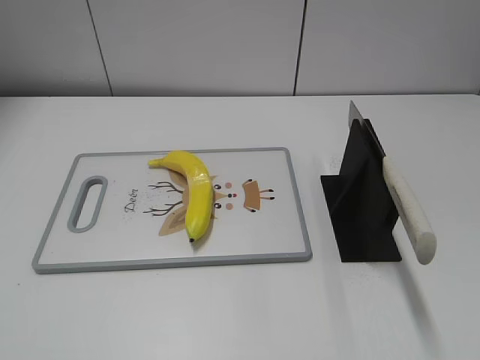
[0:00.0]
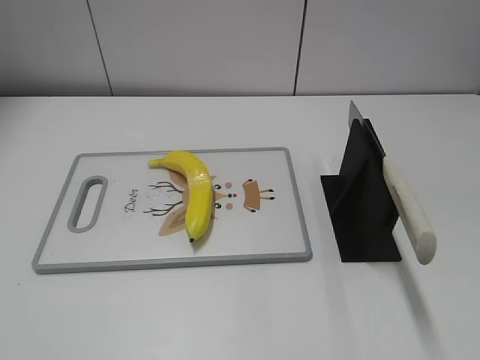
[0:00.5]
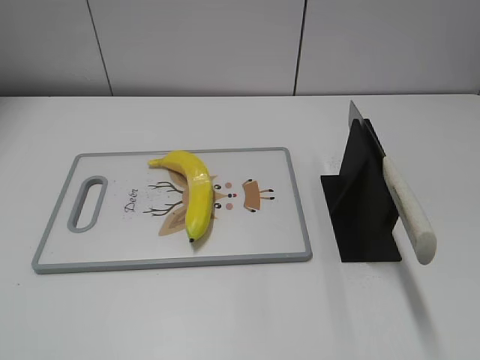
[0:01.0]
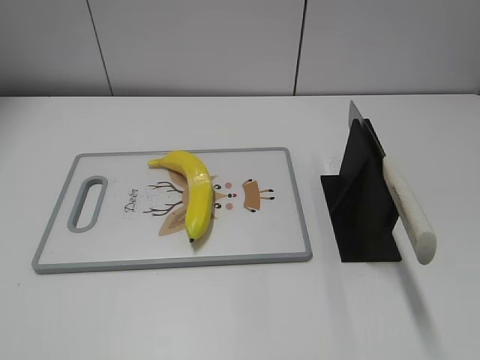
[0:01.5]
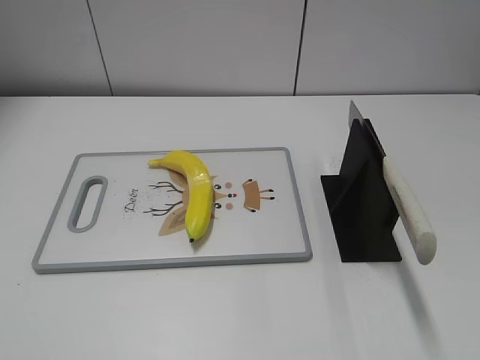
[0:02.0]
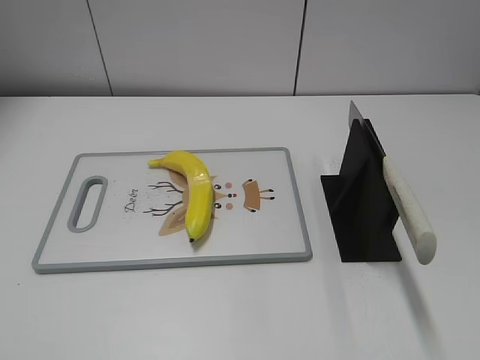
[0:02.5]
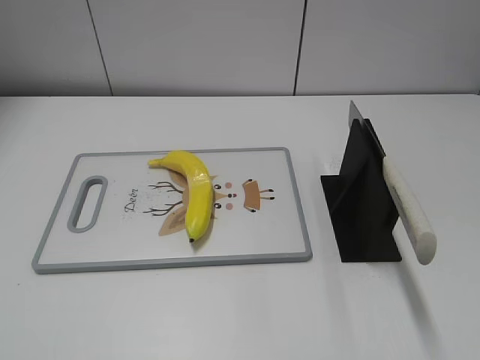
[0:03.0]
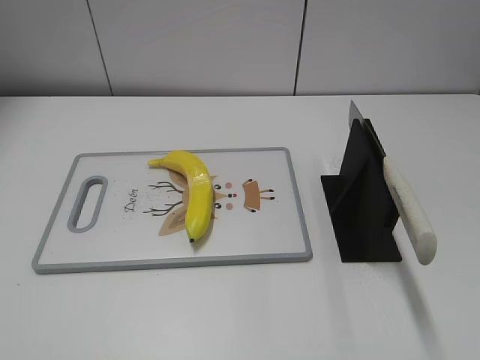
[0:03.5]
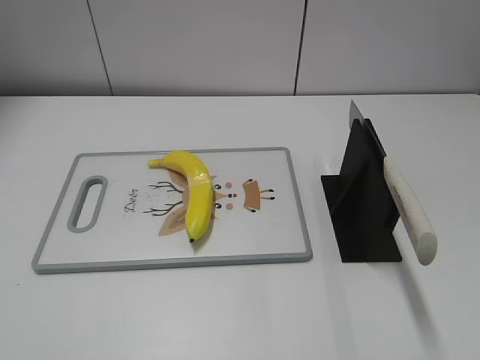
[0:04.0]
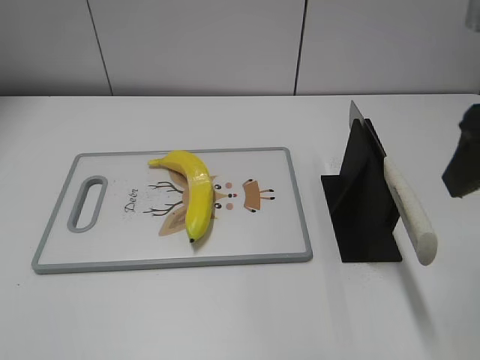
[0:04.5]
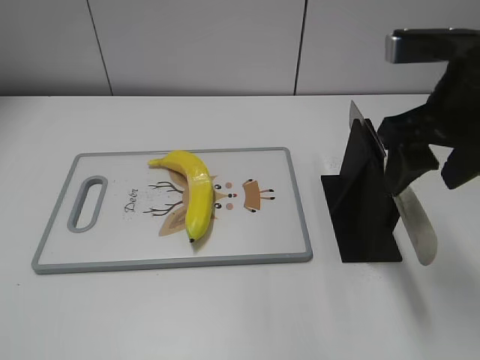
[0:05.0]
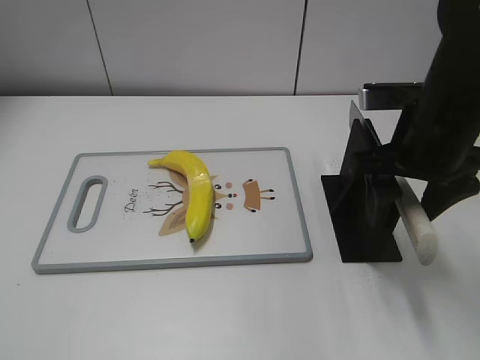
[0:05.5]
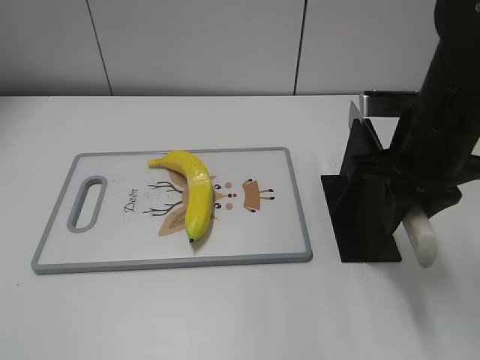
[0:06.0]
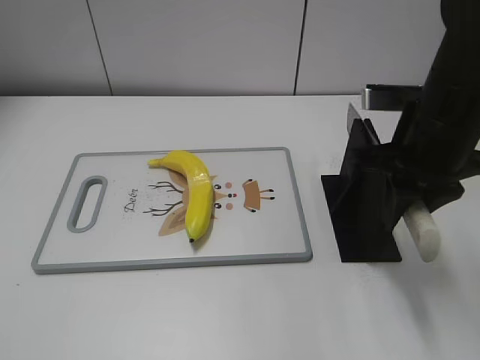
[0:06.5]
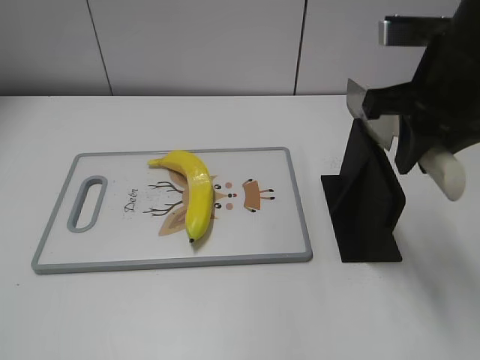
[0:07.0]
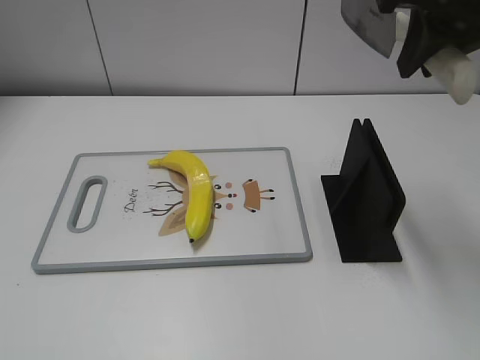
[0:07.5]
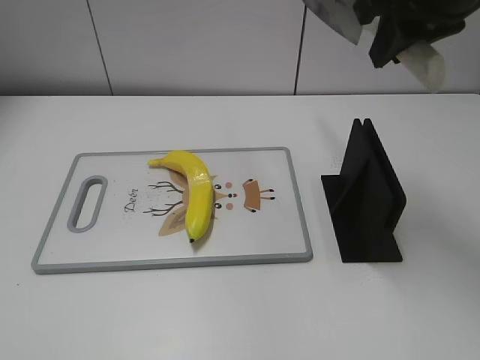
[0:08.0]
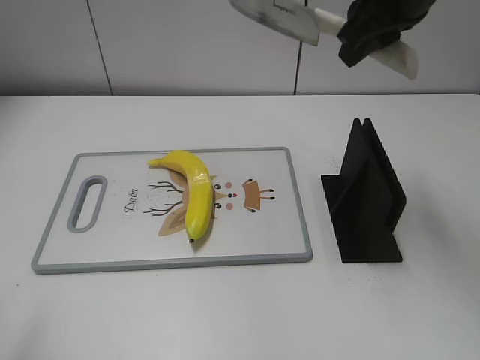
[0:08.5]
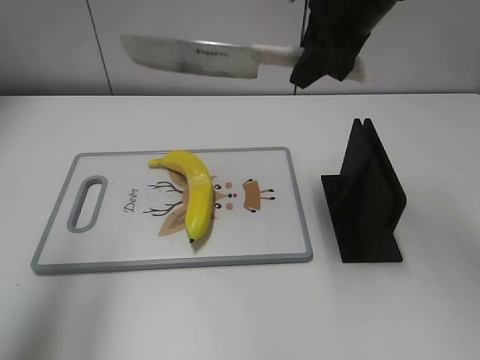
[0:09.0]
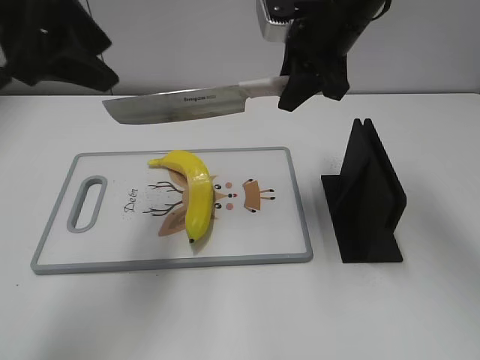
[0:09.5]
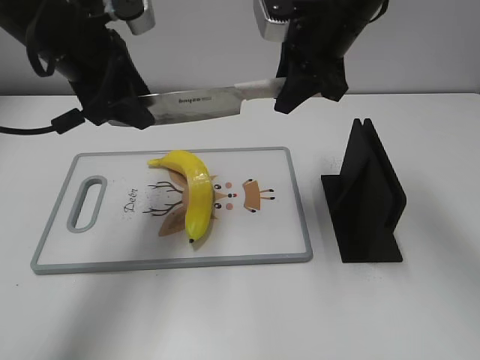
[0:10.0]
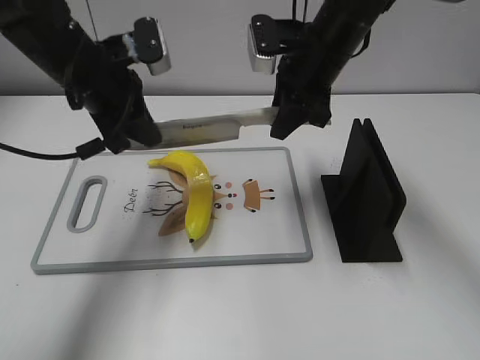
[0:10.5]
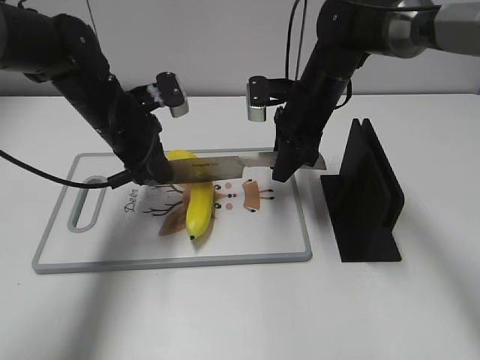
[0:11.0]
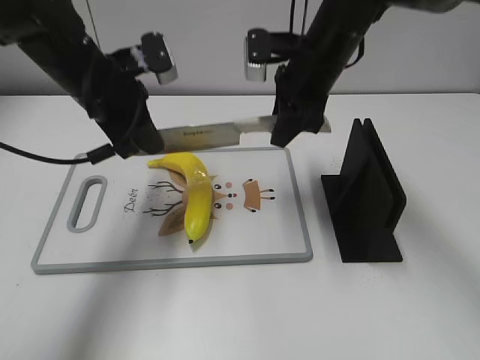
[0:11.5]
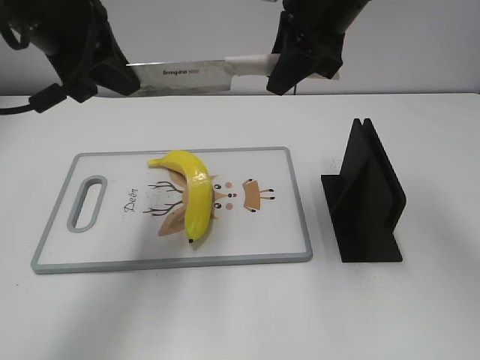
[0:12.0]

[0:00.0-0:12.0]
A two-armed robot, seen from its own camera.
Task of the whole recording: cut plastic banana.
Step, 0:00.0 to 0:07.5: Grab the knife handle with your right hand.
0:04.0 to 0:06.0: The right gripper is displaced forward, downward and to the left by approximately 20 cm, and closes up.
0:06.0 to 0:08.0: The right gripper shifts approximately 15 cm upward.
0:08.0 to 0:10.0: The right gripper is displaced downward, forward and to the left by approximately 15 cm, while the left gripper shifts roughly 40 cm forward and to the right.
0:10.0 to 0:12.0: The left gripper reaches some 15 cm downward, then returns, and closes up, while the right gripper goes downward and returns, roughly 15 cm each way.

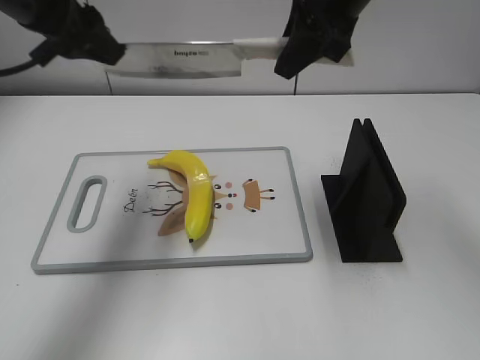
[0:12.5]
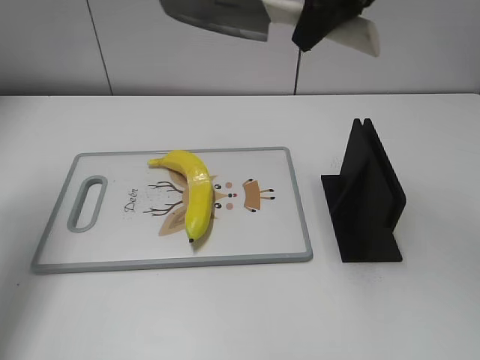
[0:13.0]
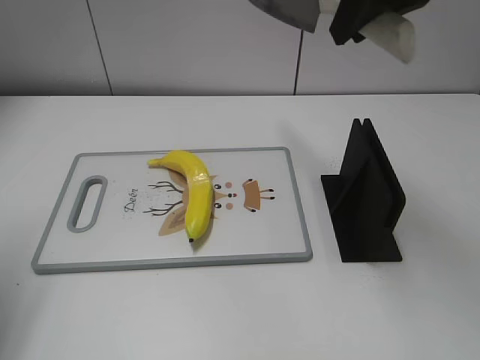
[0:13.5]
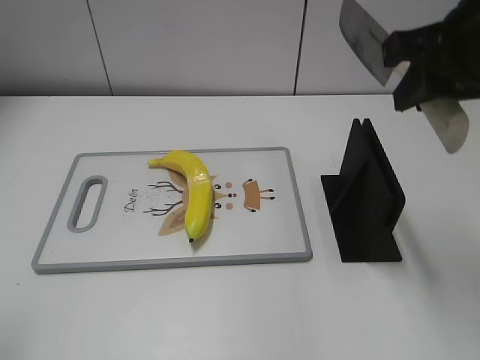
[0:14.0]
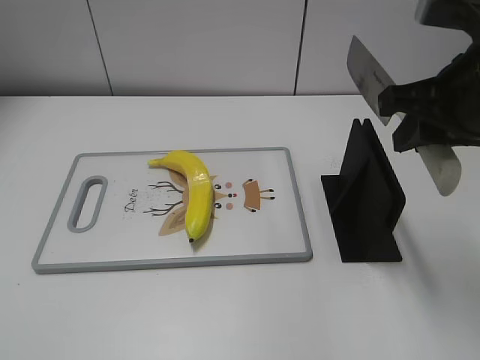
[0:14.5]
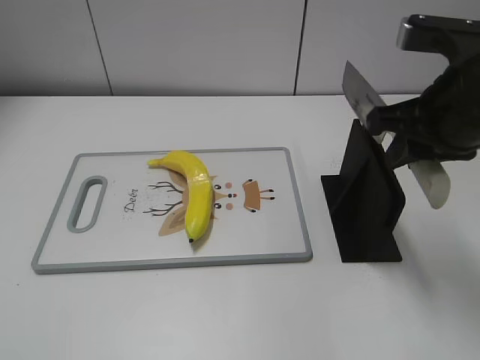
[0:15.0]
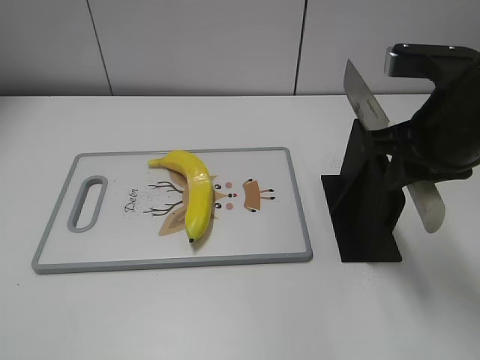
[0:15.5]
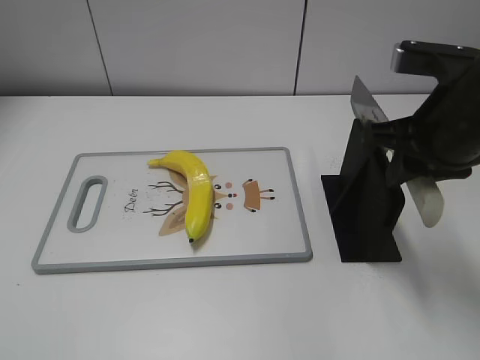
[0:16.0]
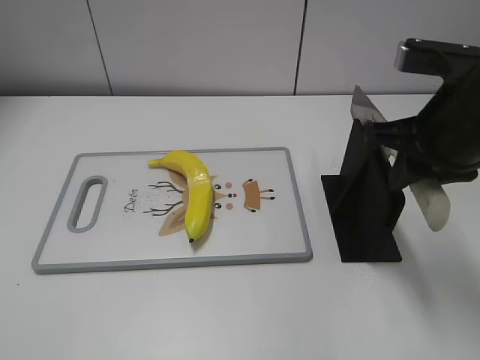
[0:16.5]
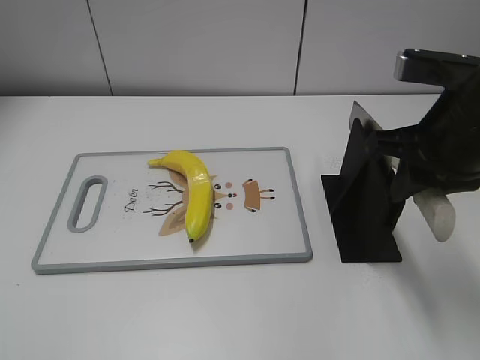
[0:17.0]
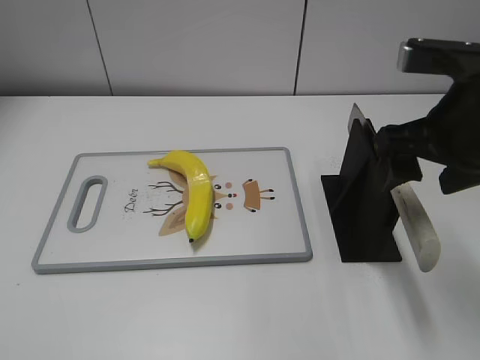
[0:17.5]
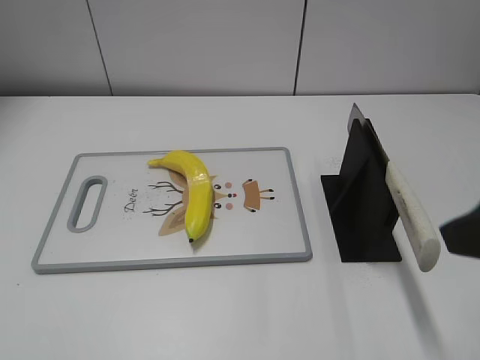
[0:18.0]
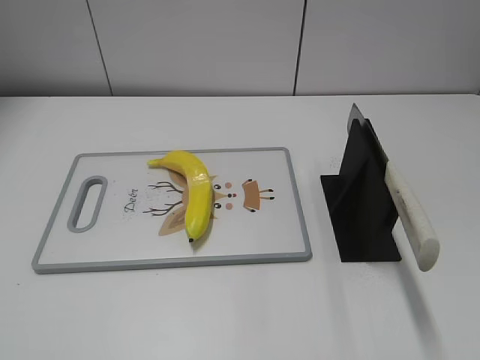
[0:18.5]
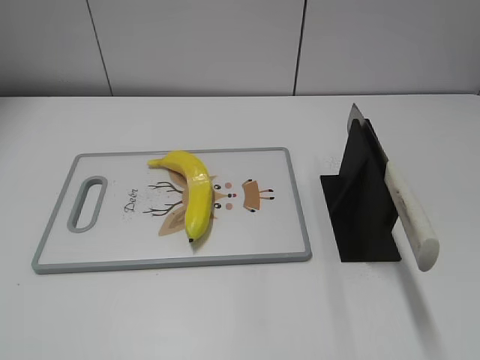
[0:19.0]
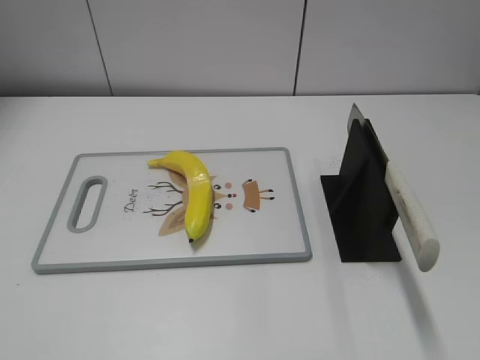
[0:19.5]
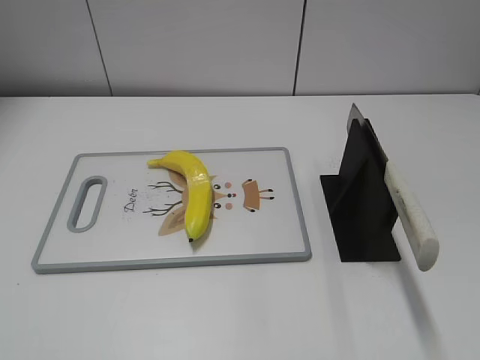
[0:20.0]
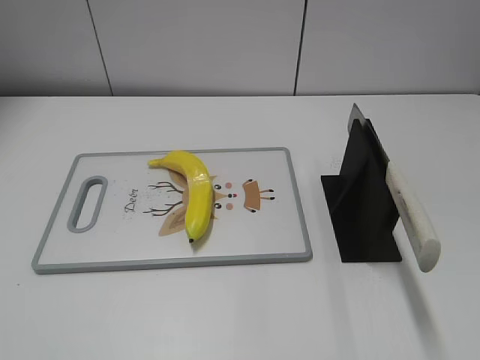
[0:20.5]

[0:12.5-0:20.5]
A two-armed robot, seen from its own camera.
Task of the whole recording: cut plastic banana.
Step, 0:13.0 to 0:13.5: Cut the banana with your right hand.
Step, 0:14.0 to 0:15.0: Lift the knife with your right hand.
Step, 0:15.5 to 0:20.5: Place the knife on the storage rack with your right hand.
0:12.5 to 0:14.5: The left gripper travels backward by roughly 35 cm. The right gripper goes approximately 15 cm backward and to the right.
0:14.5 to 0:16.5: The grippers stay close to where they were, moving slightly.
0:16.5 to 0:18.5: The right gripper travels backward and to the right by roughly 25 cm, and opens.

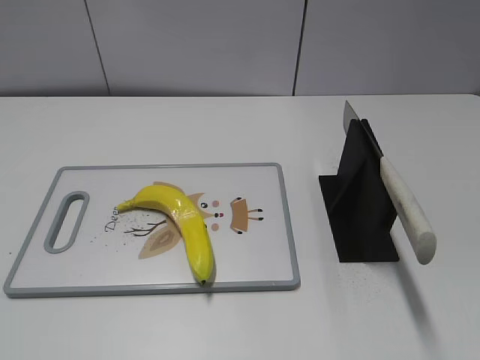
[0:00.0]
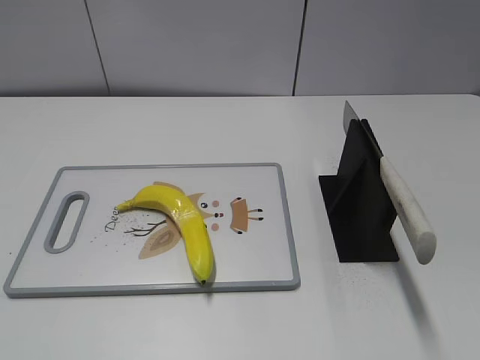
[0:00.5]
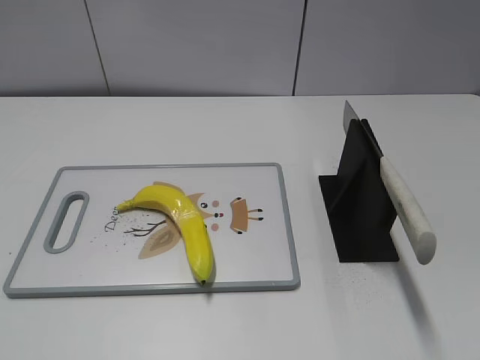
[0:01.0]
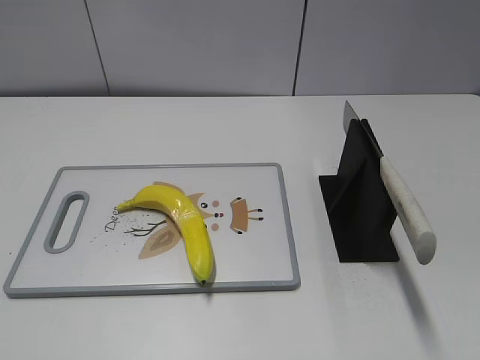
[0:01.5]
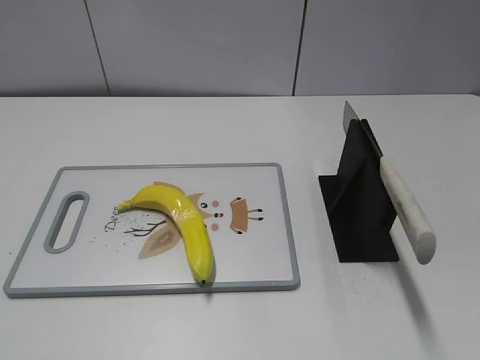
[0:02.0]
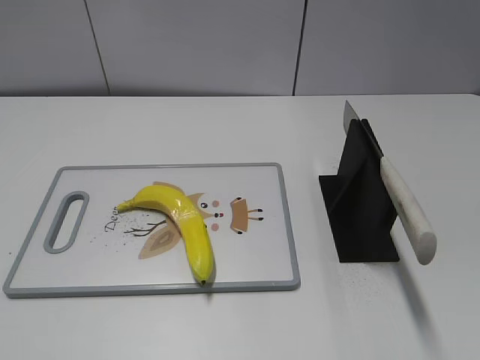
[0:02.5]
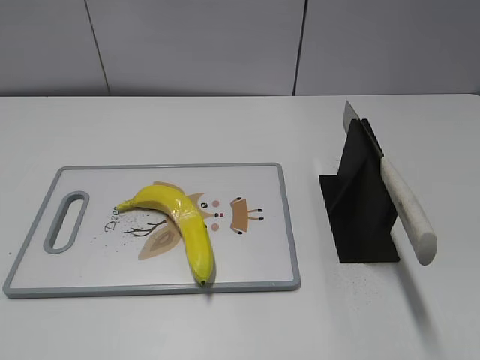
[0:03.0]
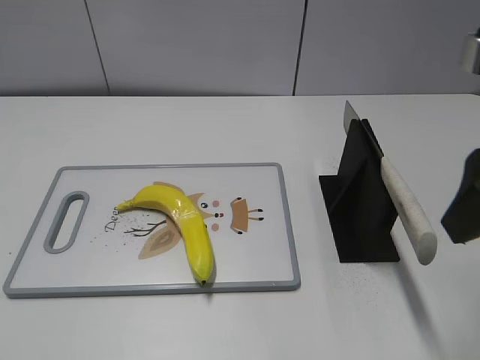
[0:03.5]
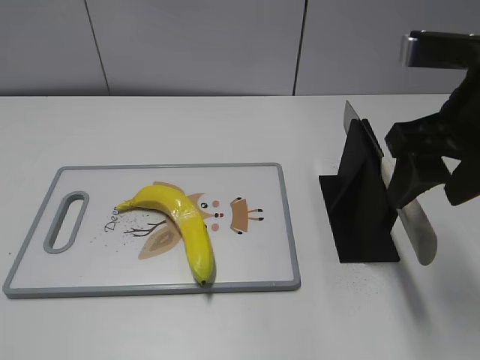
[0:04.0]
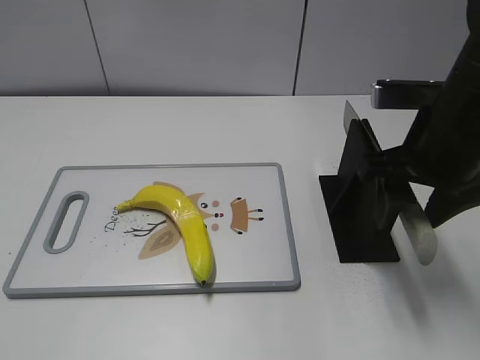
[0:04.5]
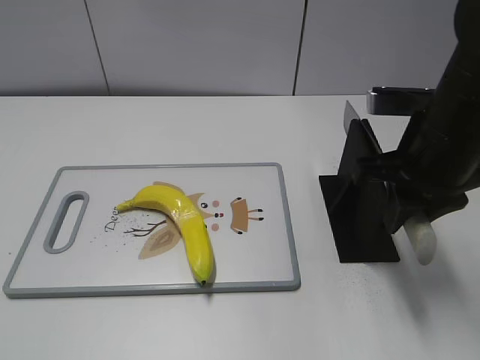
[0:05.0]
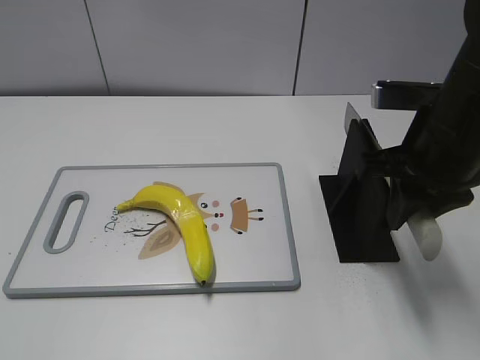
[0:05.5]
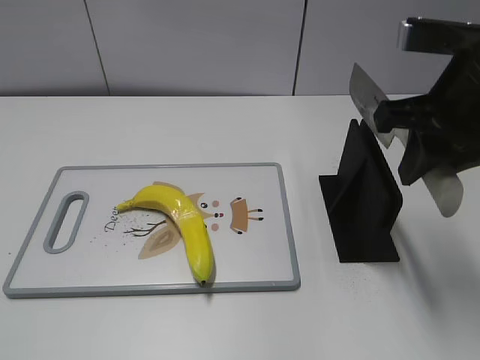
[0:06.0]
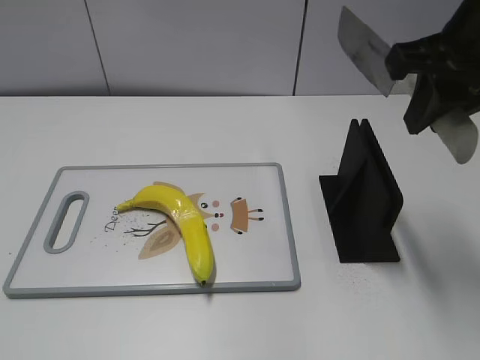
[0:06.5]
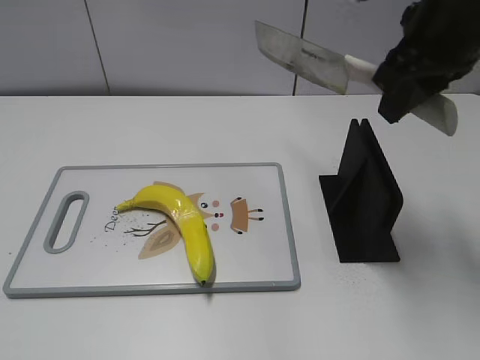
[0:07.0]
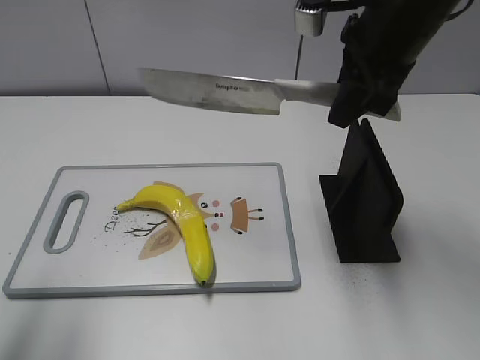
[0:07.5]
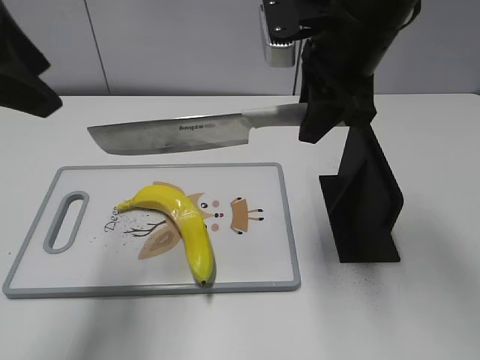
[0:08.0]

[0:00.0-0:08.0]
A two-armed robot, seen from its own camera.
Task of the whole recording: cut plastic banana.
Step, 0:00.0 to 0:06.5: Grab the knife handle with your right hand.
0:02.0 to 0:04.0: The right gripper travels forward and to the left by about 25 cm.
0:04.0 to 0:06.0: The right gripper closes.
0:06.0 to 0:08.0: The left gripper is displaced forward by some 25 cm, while the right gripper heads forward and to the left, covering roughly 10 cm.
